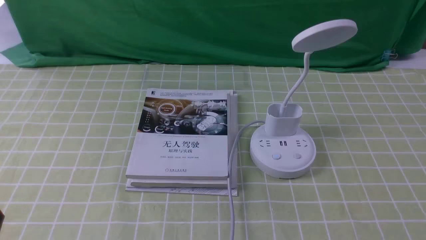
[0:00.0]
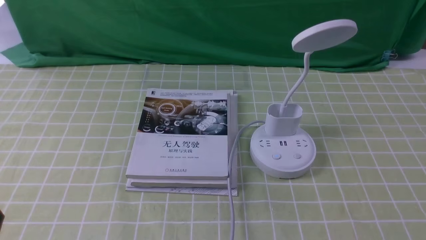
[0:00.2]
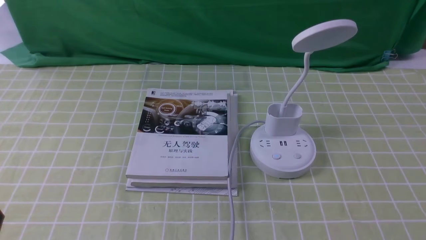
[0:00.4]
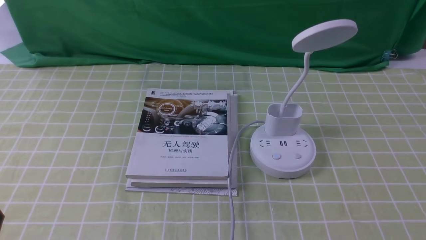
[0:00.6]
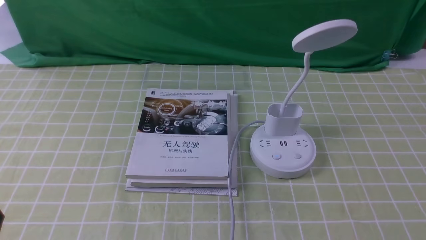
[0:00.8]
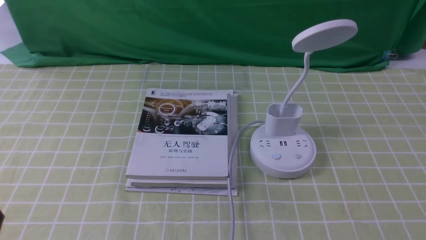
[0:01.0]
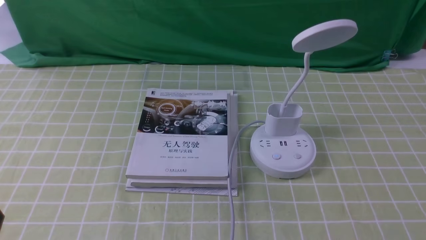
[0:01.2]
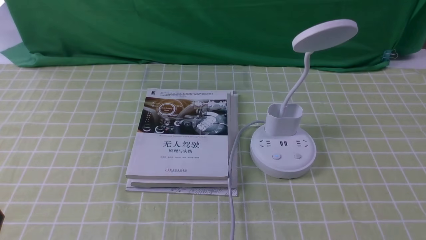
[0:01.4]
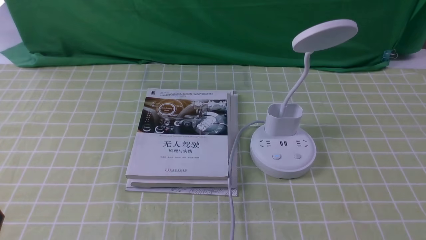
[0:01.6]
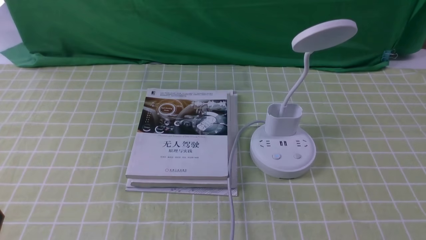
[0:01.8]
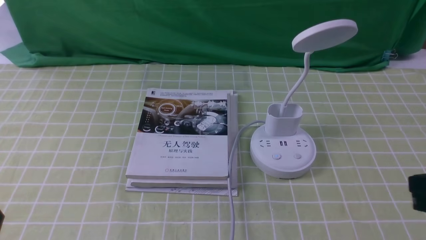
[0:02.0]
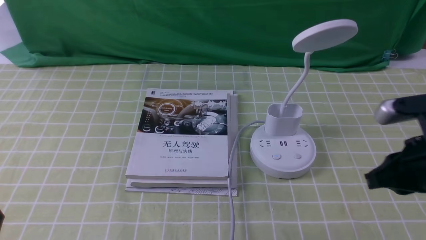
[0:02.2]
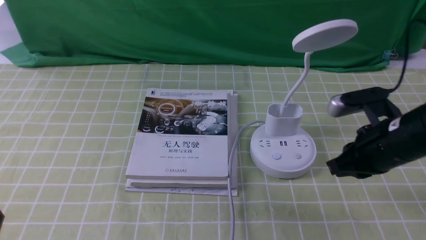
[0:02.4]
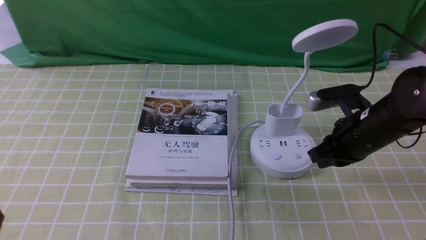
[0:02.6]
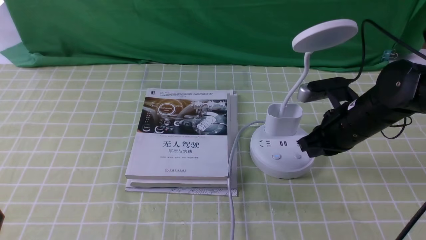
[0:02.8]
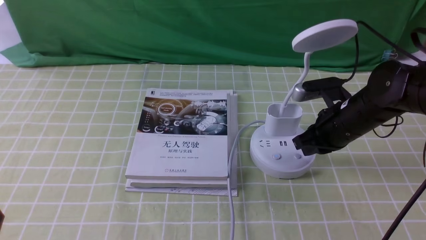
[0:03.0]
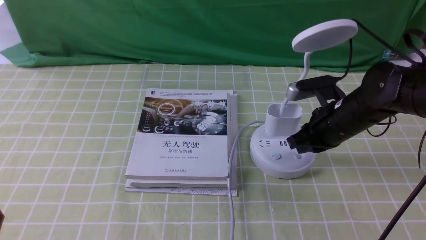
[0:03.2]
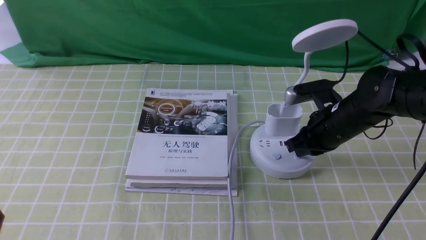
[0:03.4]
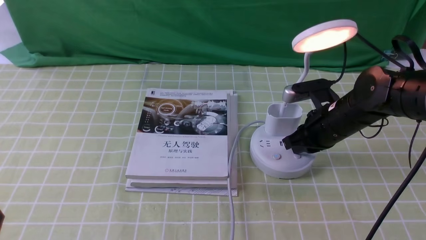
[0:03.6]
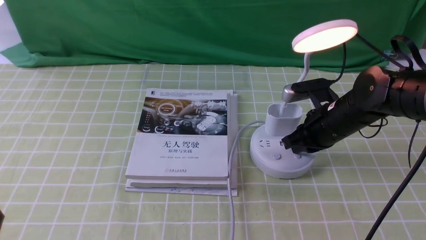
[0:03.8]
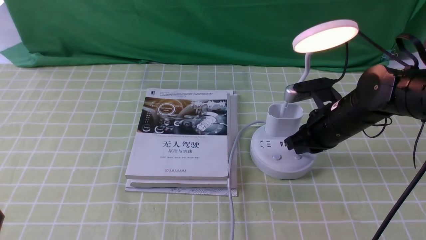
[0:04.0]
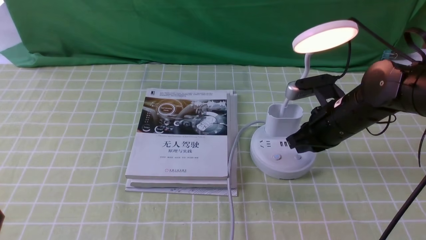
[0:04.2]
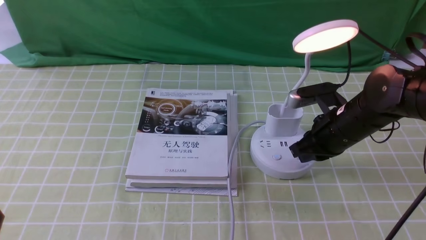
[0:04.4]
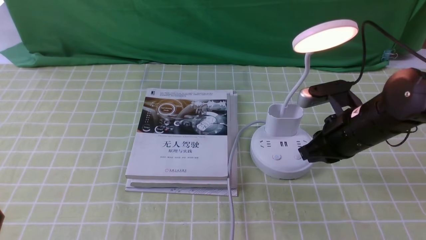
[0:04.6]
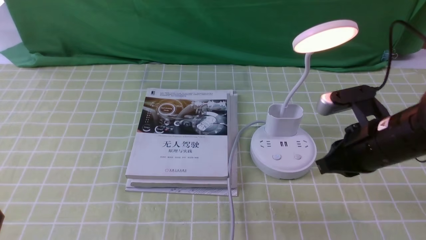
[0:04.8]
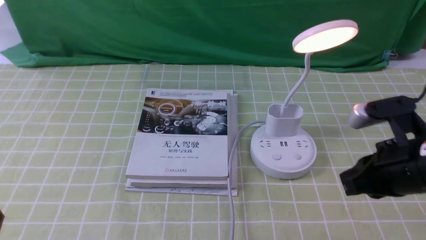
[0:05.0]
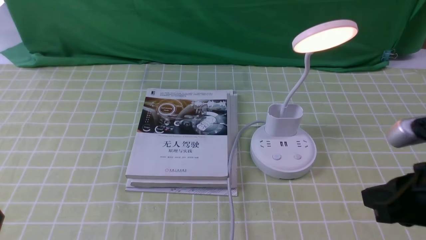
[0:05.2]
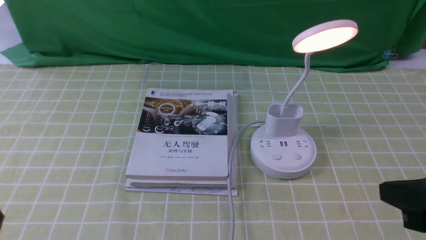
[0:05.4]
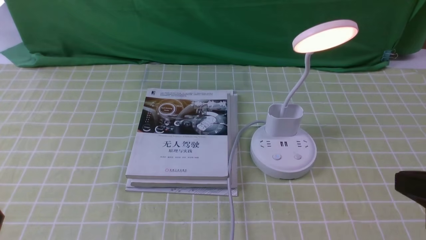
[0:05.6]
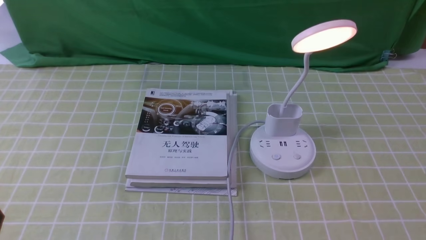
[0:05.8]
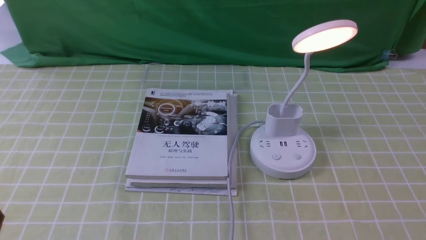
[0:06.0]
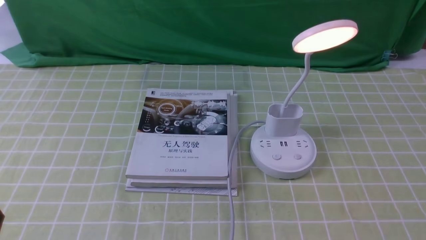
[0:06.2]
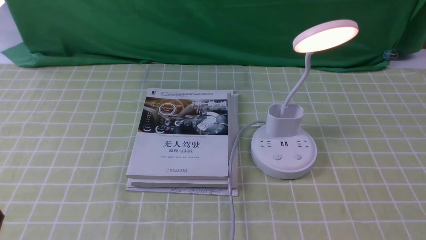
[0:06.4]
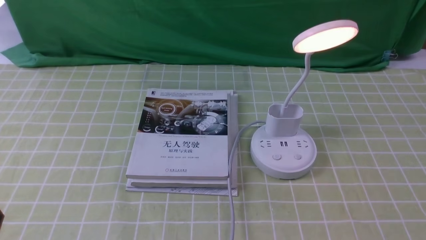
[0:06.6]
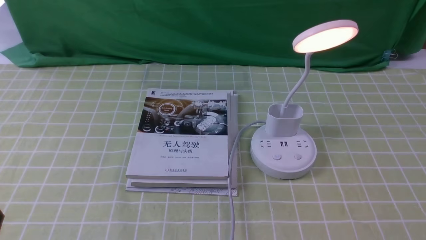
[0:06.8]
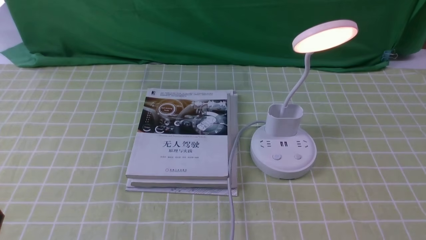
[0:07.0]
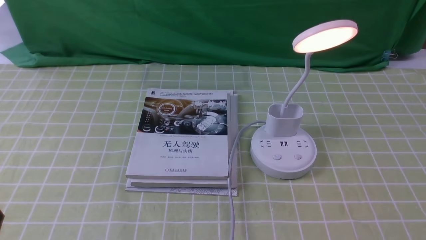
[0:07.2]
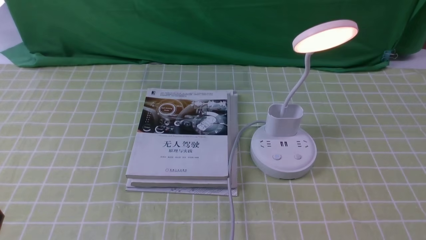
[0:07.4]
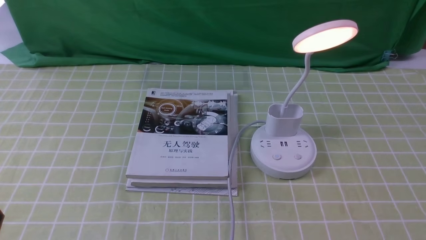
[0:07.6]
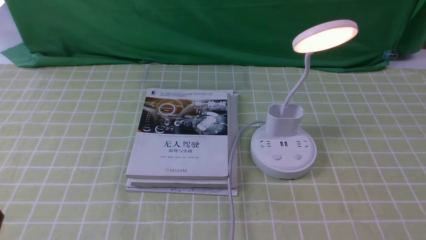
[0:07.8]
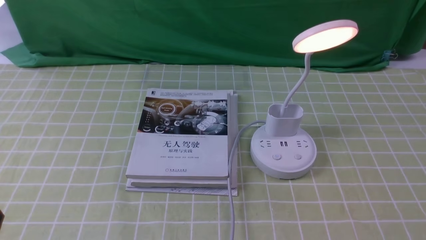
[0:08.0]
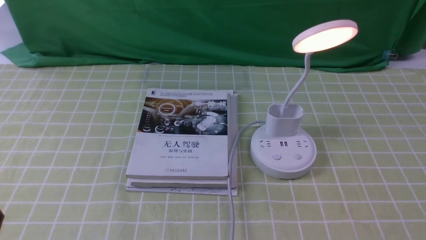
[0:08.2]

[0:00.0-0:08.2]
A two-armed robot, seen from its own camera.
Step, 0:00.0 to 0:05.2: use the right arm to press the button switch on the lamp holder.
0:01.6 to 0:03.2: The right gripper heads forward and to the left, covering approximately 30 cm.
0:03.2 to 0:05.0: The right gripper is displaced backward and upward by some 15 cm.
0:05.0 to 0:06.6: The right gripper moves backward, to the right and downward, approximately 20 cm.
